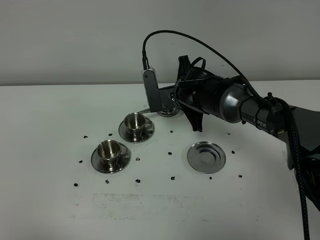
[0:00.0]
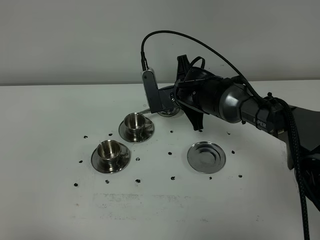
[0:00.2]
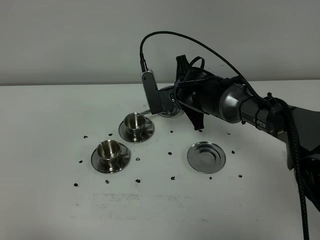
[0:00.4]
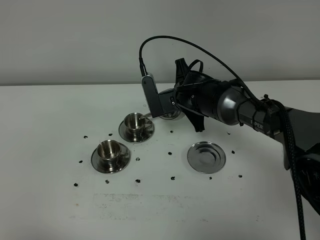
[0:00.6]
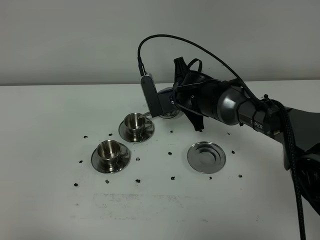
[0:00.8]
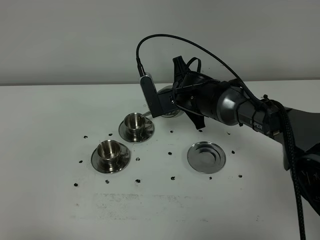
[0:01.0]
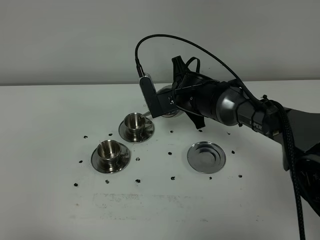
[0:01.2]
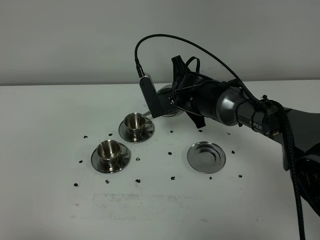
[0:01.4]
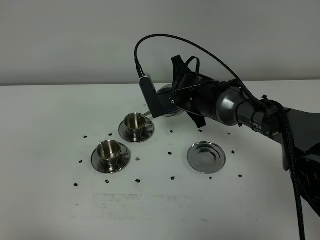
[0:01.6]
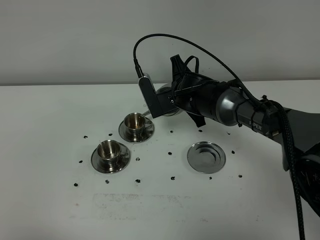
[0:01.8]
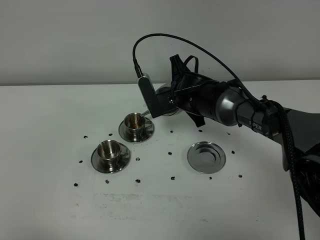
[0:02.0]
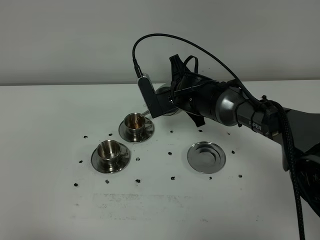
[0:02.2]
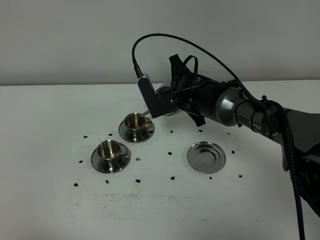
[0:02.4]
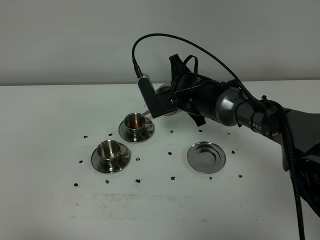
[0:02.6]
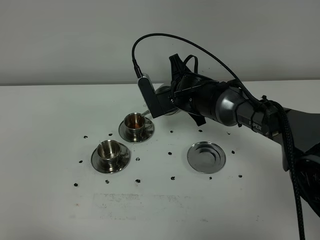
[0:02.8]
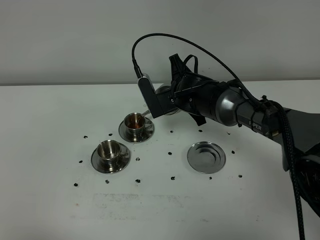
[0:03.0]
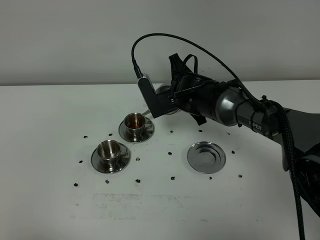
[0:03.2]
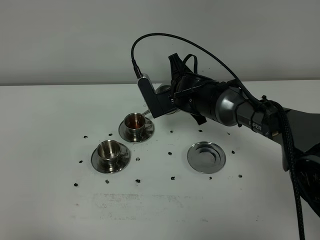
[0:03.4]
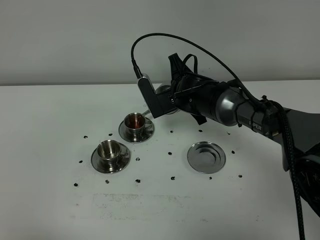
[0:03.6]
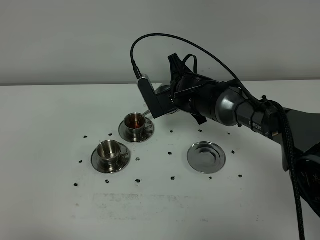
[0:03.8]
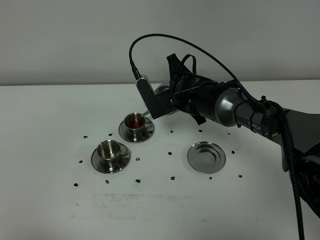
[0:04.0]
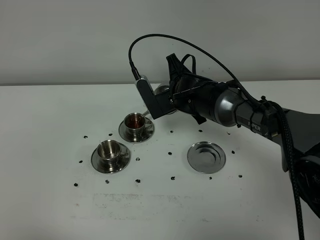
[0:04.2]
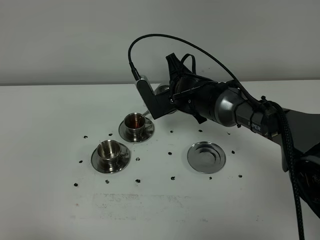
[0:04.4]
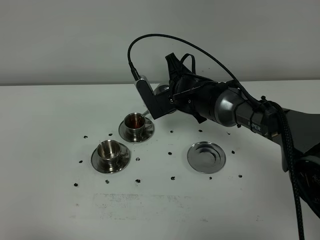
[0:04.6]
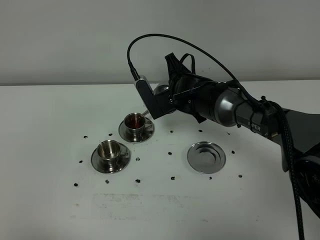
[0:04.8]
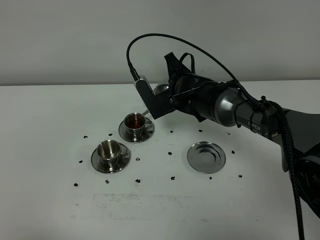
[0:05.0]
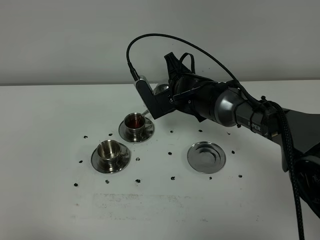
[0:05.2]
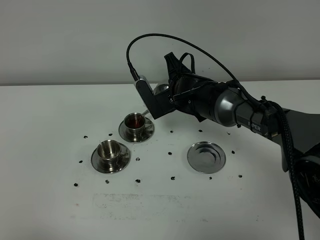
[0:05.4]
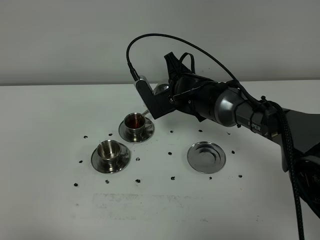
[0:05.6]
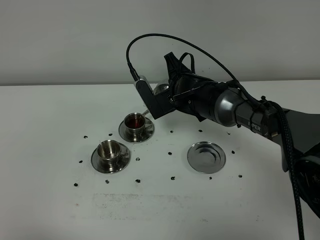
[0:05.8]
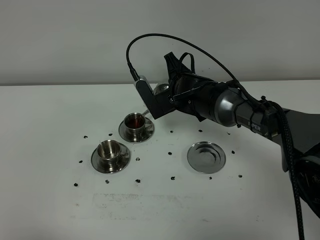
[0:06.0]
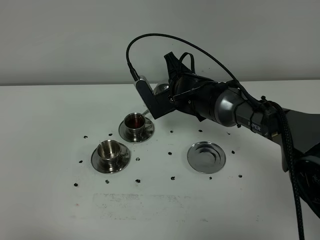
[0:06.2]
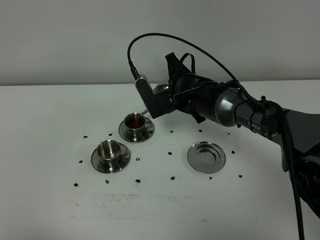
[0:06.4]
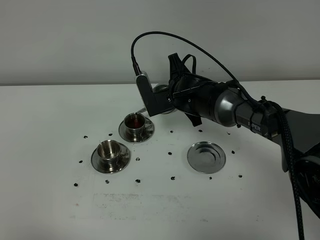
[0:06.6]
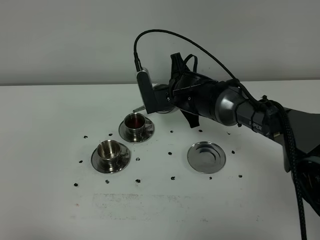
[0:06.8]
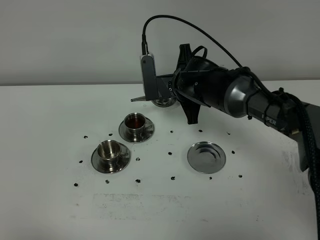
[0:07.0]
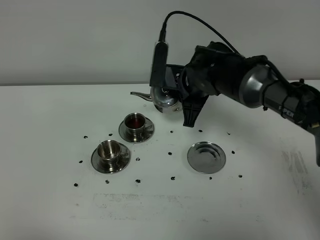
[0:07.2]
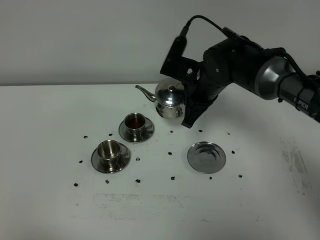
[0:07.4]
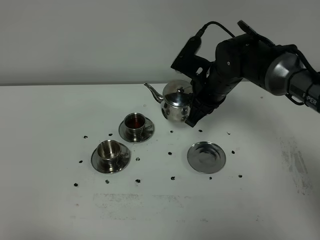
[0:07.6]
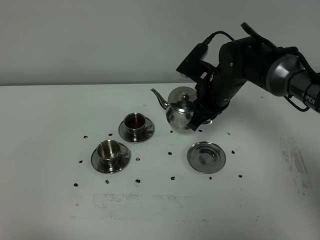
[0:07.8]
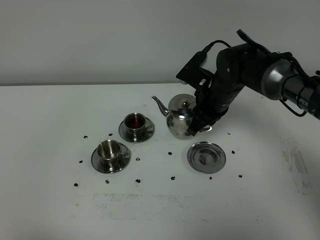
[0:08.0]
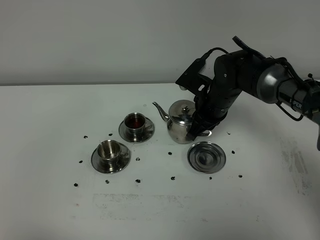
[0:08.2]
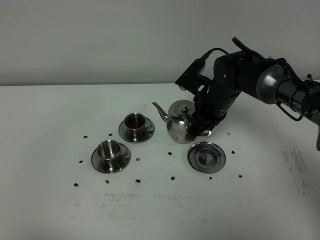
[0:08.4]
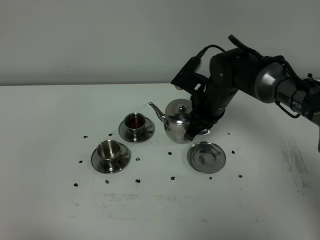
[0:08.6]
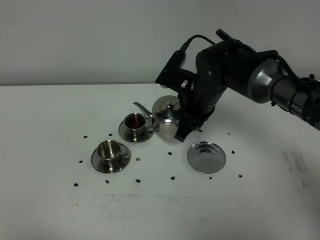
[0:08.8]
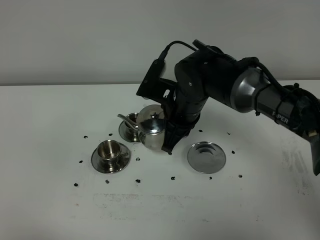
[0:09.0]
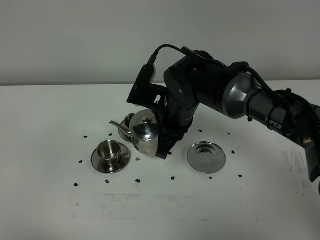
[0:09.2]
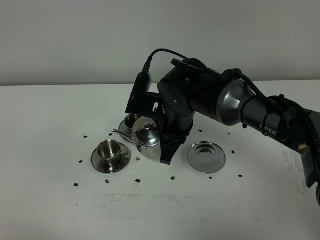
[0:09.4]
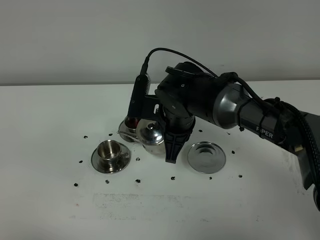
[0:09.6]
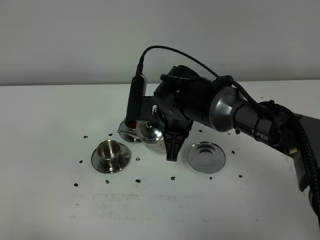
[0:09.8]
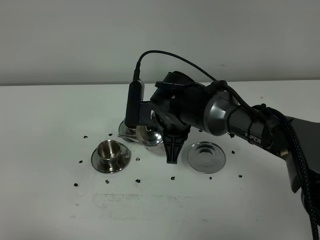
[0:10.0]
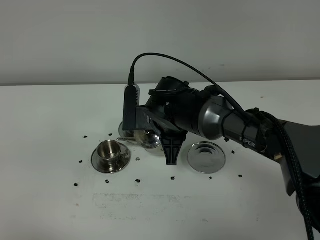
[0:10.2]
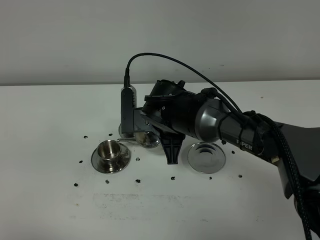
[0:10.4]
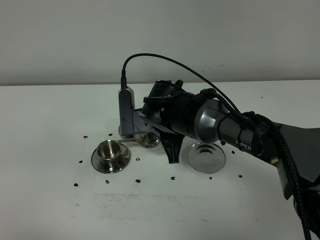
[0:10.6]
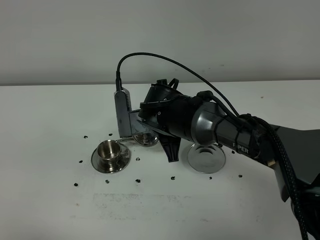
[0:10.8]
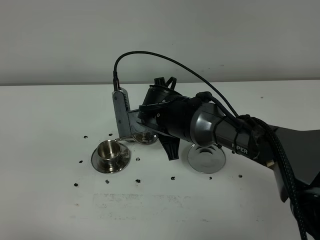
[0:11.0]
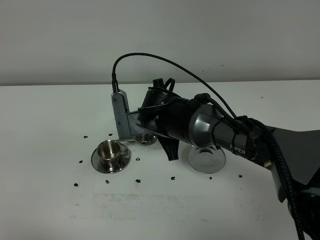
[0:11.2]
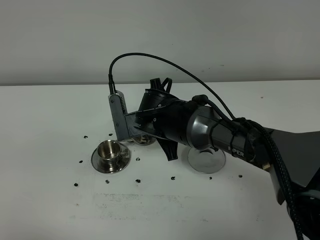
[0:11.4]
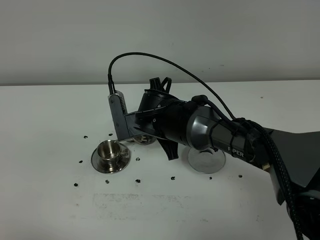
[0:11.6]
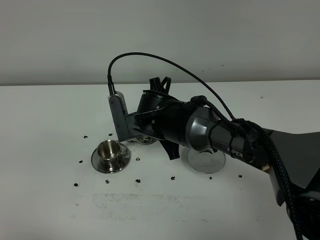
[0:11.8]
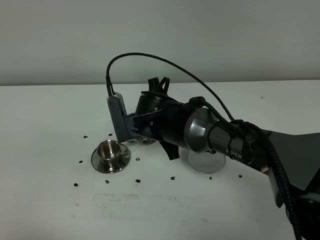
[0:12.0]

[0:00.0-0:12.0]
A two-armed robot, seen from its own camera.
Task of the whole recording: grasp the stainless steel teapot and pour the tea into the two stainless steel teacups one by one, put the stainless steel teapot back in its original place.
0:00.0 to 0:01.6: There are only small adjustments of the grippers.
0:01.6 to 0:03.0: The two grippers keep their place.
0:03.0 to 0:04.4: Both grippers stay put.
0:04.4 to 0:06.0: Neither gripper changes place.
0:06.0 to 0:07.6: The right gripper moves to the right, about 5 cm.
0:07.6 to 0:09.0: The right gripper moves to the left and backward, roughly 10 cm.
0:10.4 to 0:12.0: The grippers move only a little.

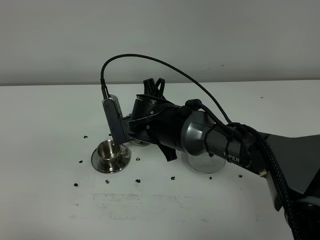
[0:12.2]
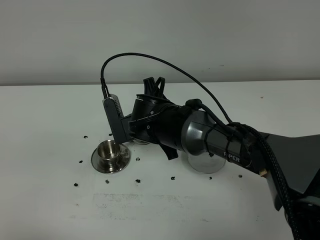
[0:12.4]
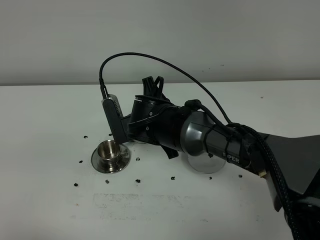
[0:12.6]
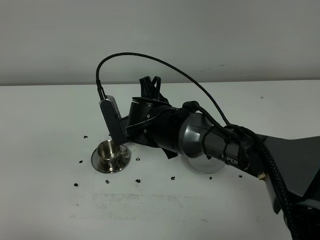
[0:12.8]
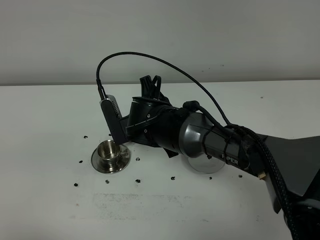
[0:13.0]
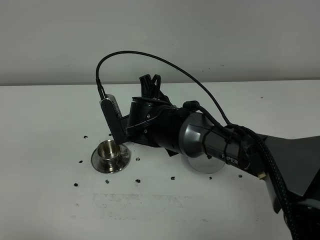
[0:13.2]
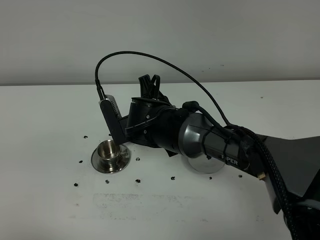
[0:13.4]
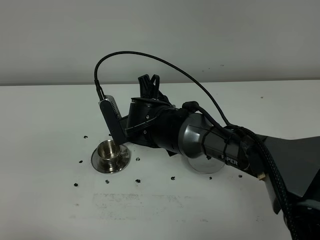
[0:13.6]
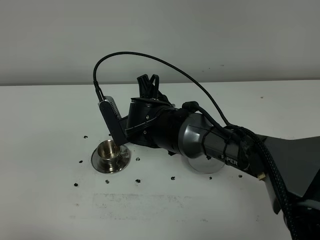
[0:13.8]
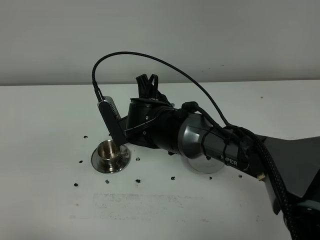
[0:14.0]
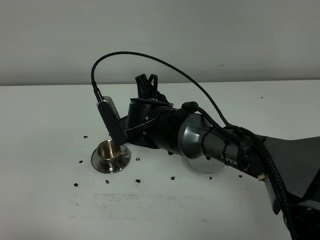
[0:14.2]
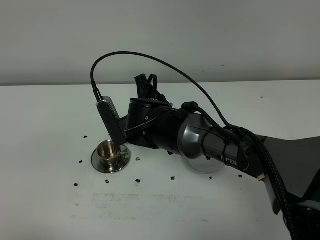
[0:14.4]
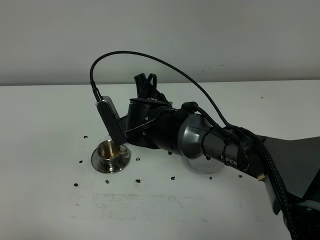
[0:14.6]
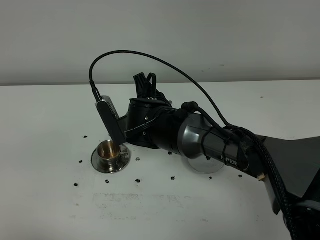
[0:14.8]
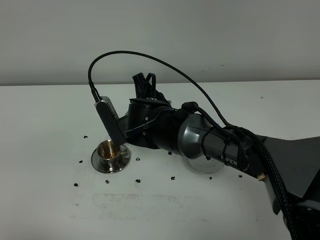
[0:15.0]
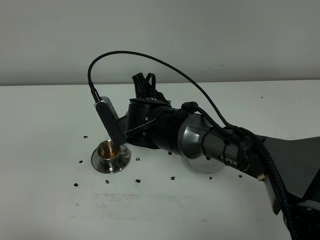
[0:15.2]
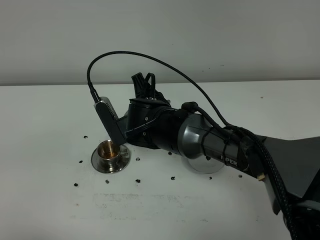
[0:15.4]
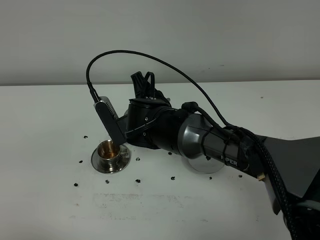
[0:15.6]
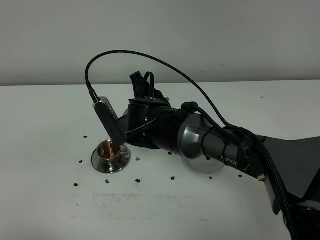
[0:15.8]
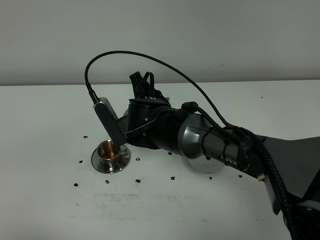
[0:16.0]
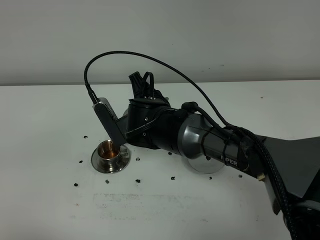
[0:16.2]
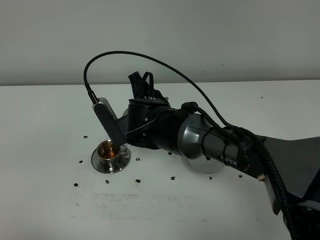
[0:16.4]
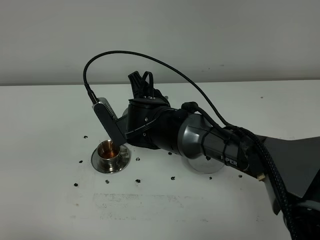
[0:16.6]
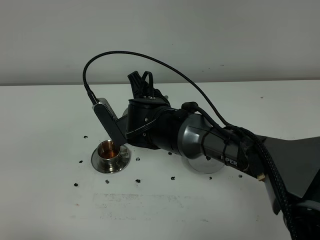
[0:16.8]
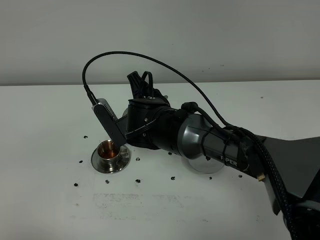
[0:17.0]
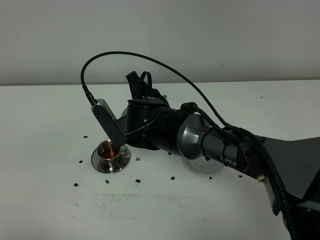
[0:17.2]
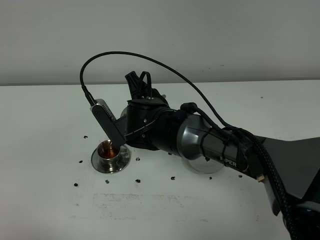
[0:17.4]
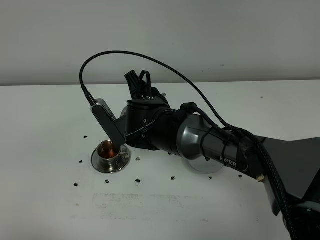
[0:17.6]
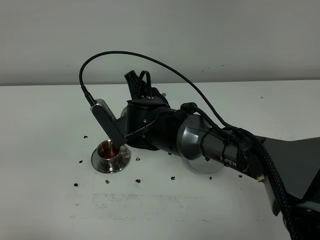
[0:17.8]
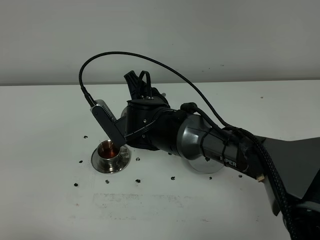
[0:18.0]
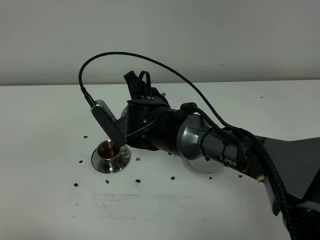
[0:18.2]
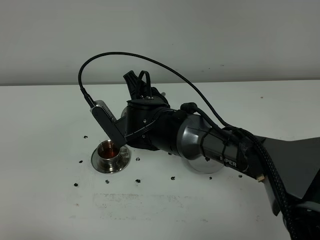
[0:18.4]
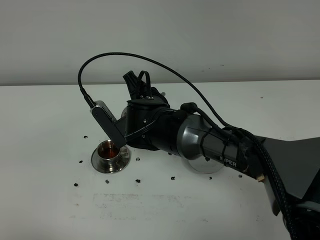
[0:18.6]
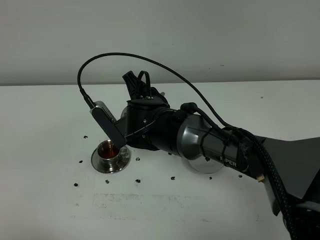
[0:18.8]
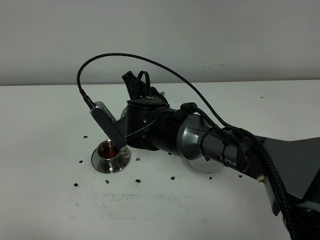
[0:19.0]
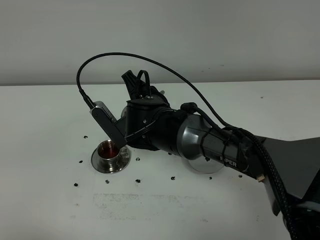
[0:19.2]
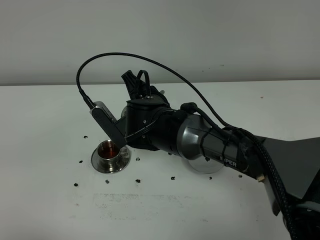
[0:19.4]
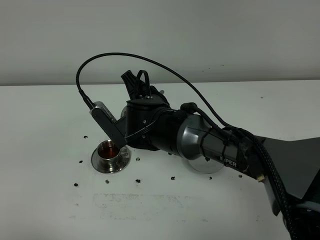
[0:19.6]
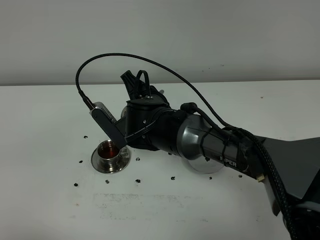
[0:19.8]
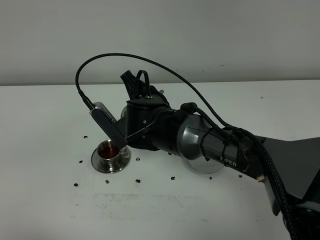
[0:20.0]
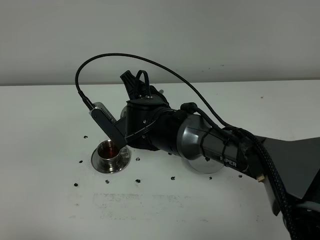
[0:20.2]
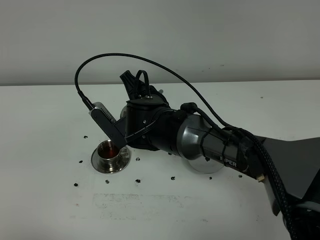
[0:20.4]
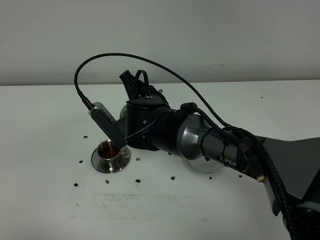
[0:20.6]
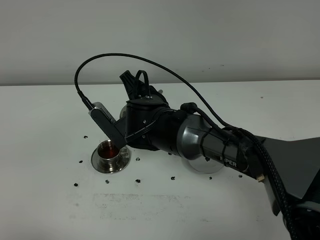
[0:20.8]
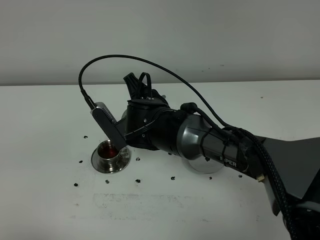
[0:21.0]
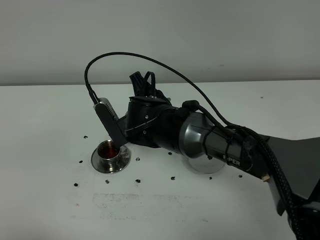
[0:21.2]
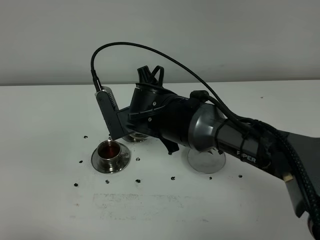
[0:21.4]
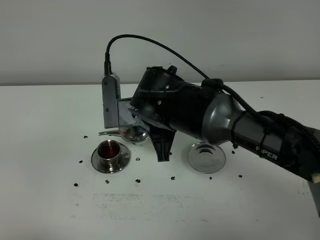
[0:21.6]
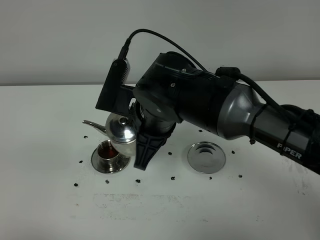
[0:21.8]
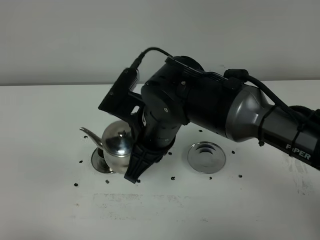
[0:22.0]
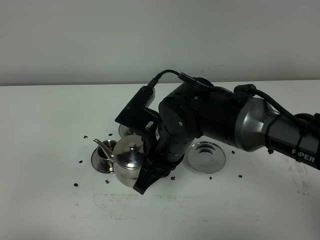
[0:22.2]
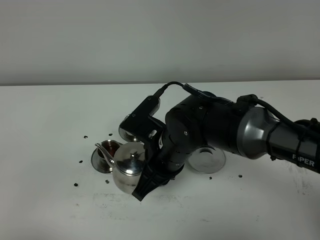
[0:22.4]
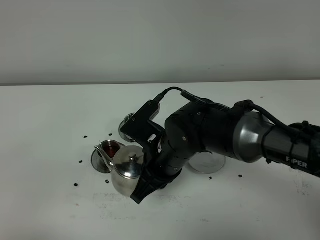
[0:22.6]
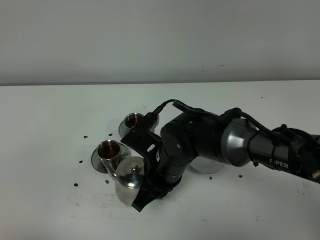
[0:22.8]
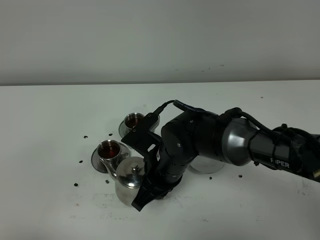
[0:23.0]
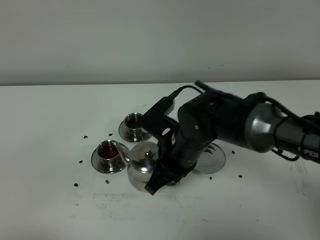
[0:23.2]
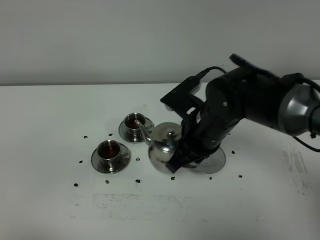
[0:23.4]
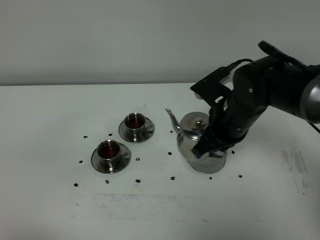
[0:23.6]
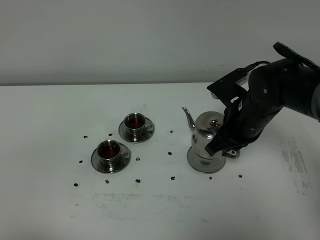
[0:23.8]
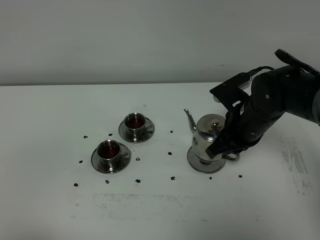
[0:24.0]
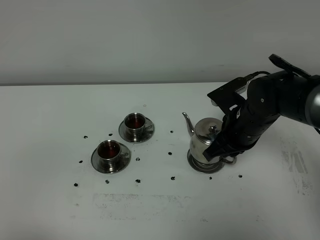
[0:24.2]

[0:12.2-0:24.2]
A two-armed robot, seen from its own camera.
Task of the whole recording: grasp the stainless steel teapot and pour the tea into the two stainless steel teacups one by one, put the stainless steel teapot back in its original place.
Step, 0:12.2 to 0:21.4: Pour tea into the teacup with the right gripper.
0:12.2 to 0:13.8: The grippers move only a little.
0:13.8 to 0:15.2: Neither gripper changes place.
0:15.2 to 0:16.6: The two grippers keep their place.
0:16.6 to 0:18.2: Both grippers stay about where they are.
0:18.2 to 0:19.8: Both grippers stay about where they are.
0:19.8 to 0:21.2: The grippers move only a little.
0:21.2 to 0:22.6: The right gripper goes some 5 cm backward, and travels upward and back again, some 5 cm each way.
0:22.6 to 0:24.2: The right gripper heads to the right and forward, covering approximately 15 cm.
